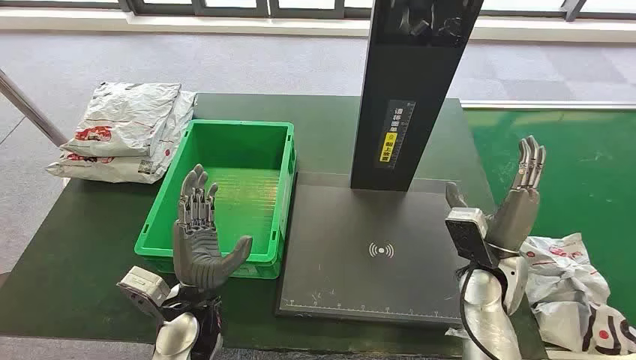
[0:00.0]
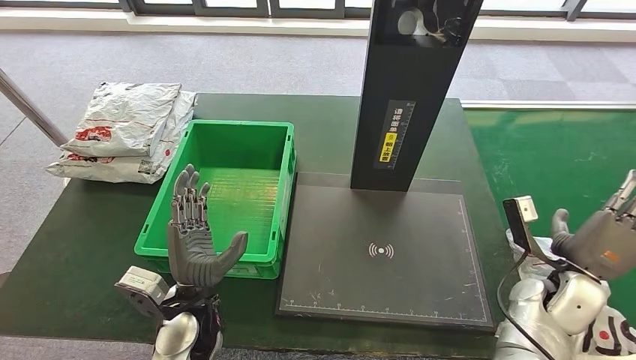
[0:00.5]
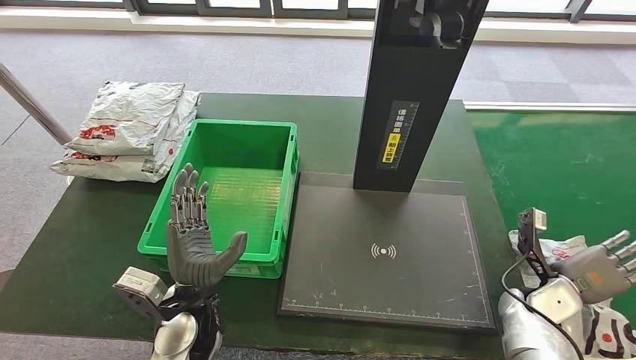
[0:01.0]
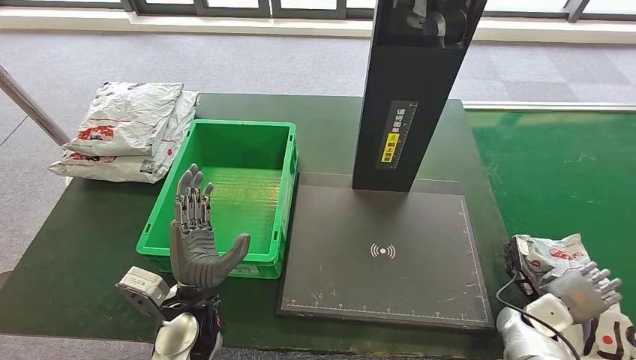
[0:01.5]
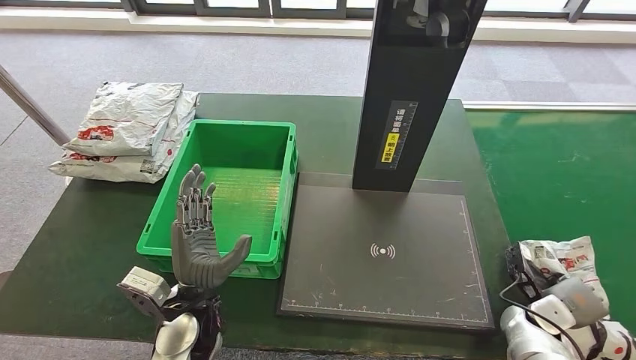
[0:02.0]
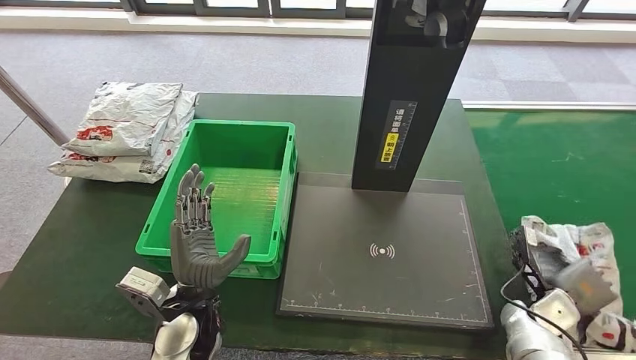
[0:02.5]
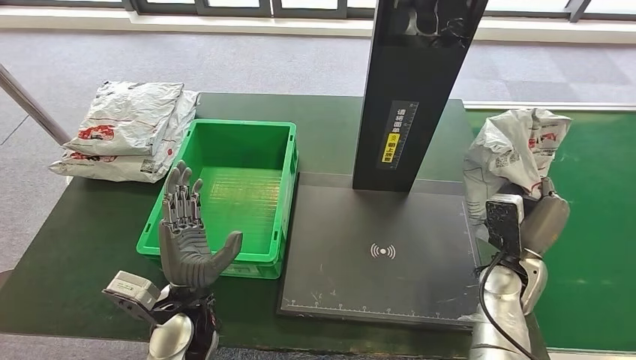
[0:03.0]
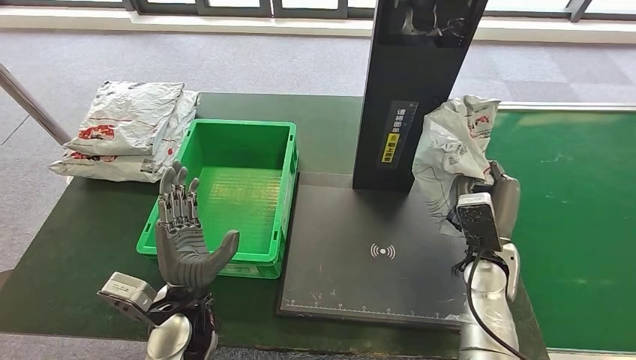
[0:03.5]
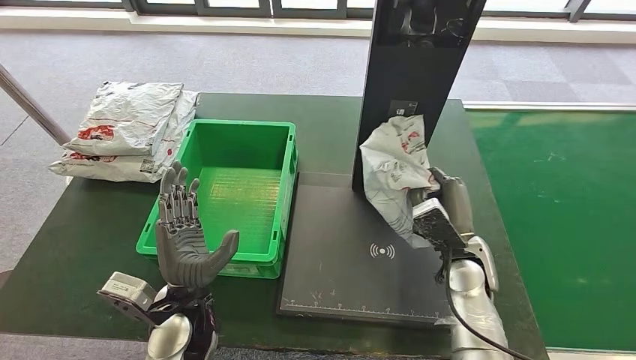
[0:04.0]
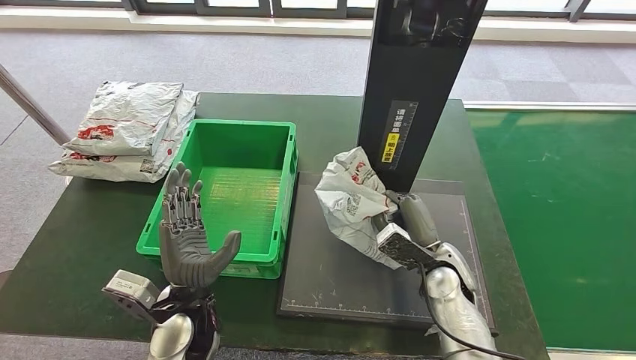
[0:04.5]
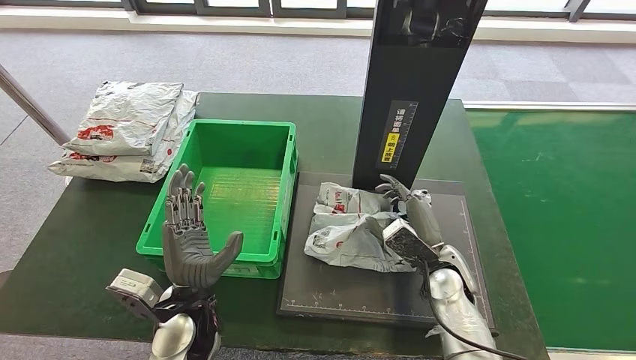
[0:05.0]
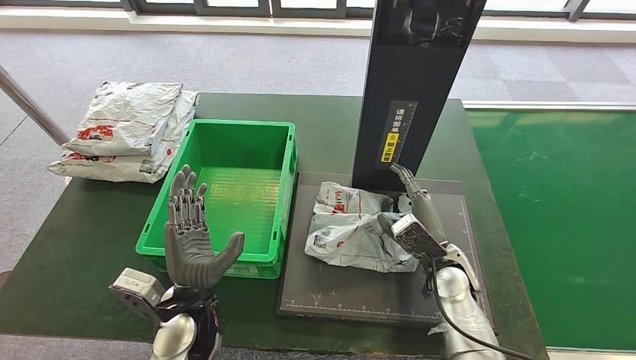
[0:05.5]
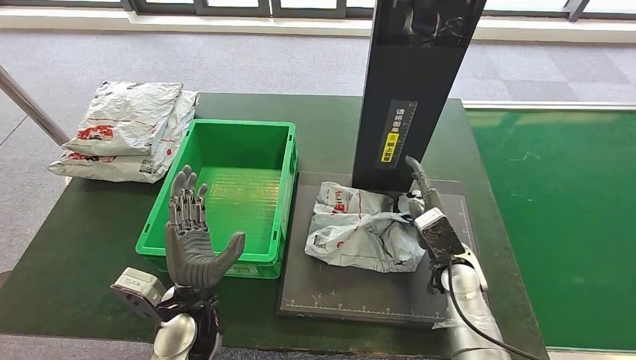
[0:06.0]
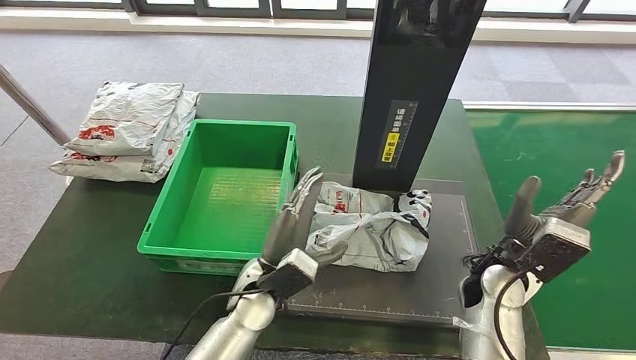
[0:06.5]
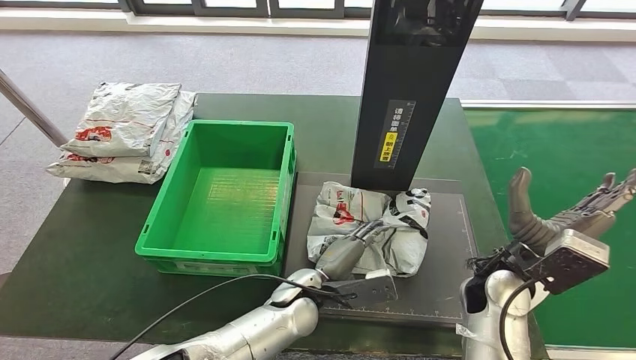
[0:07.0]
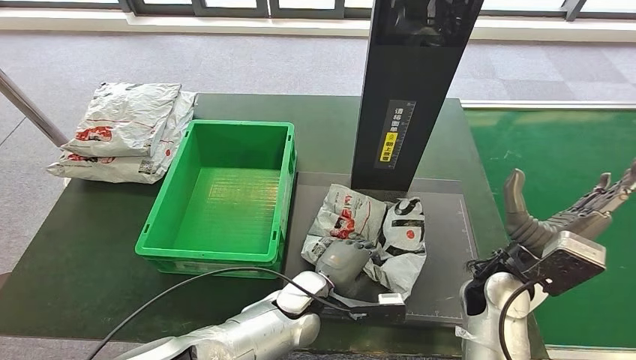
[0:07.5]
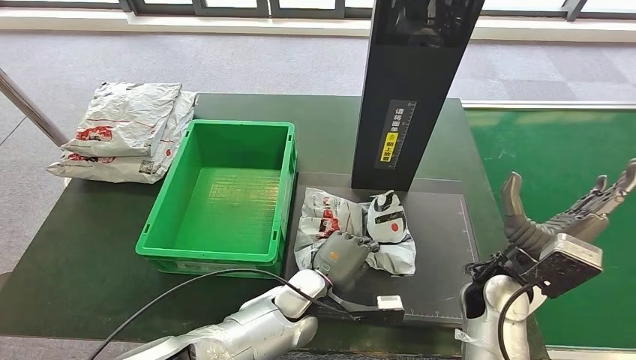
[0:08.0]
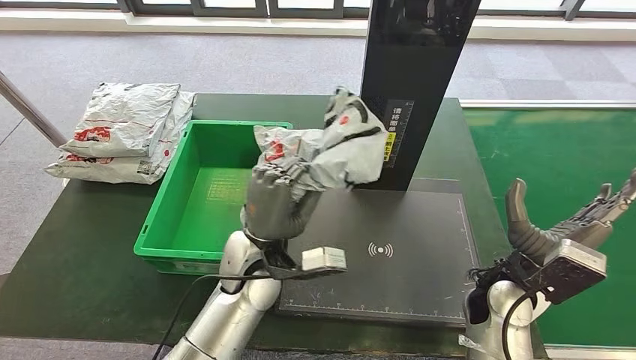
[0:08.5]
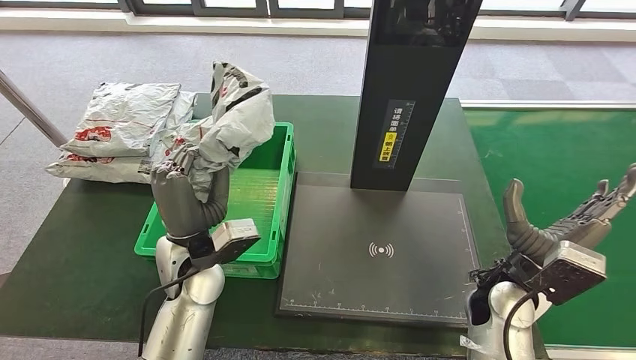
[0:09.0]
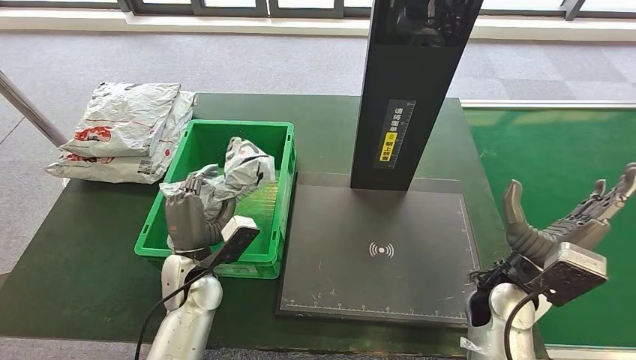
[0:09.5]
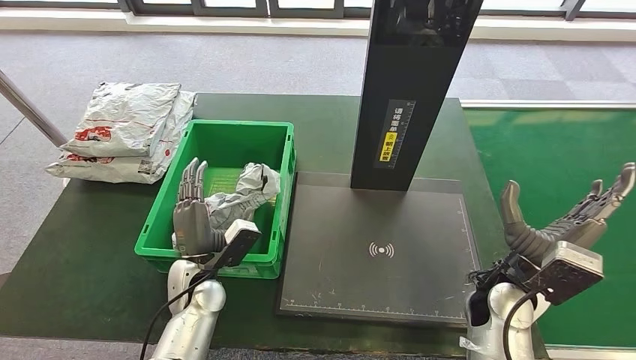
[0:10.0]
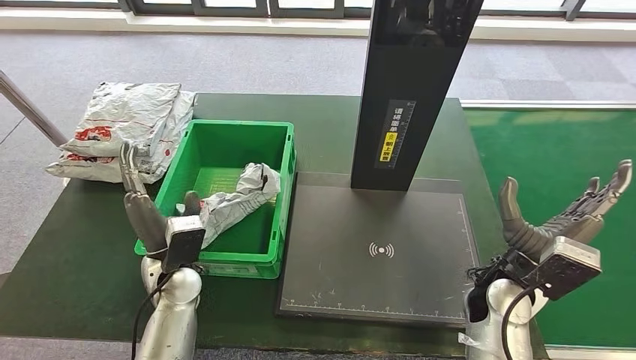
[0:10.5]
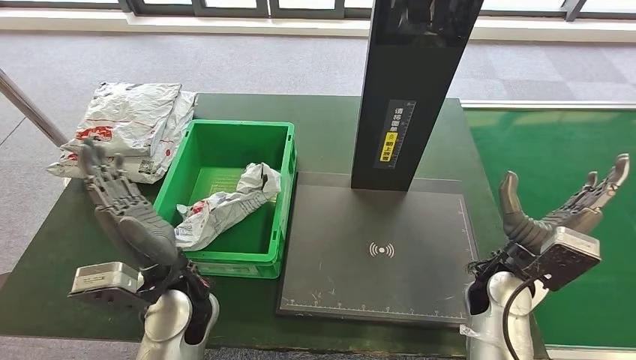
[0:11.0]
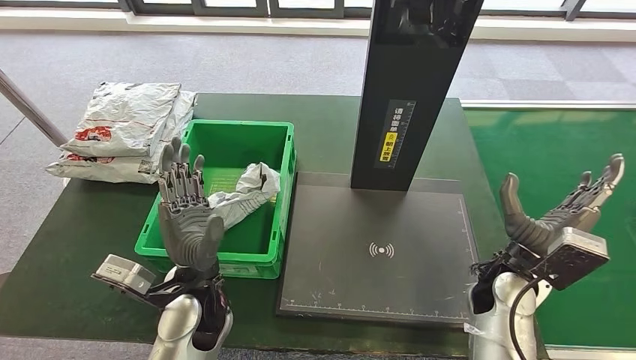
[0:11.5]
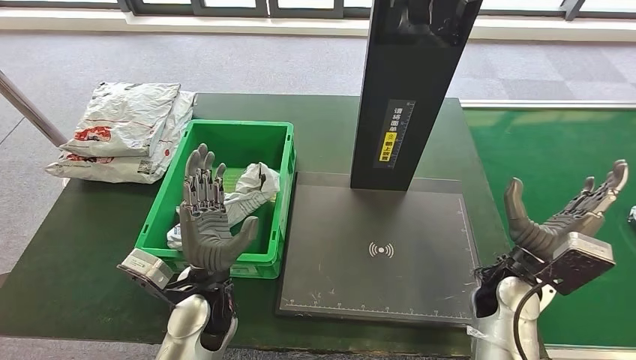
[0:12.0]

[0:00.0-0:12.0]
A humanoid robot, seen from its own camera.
Step, 0:00.0 to 0:02.5: Take the parcel off the conveyor belt.
Step, 0:03.5 to 0:06.0: Place the parcel onto the inbound machine.
Step, 0:06.5 to 0:08.5: Pick up the parcel from the inbound machine.
Step, 0:09.0 to 0:10.0: Put the parcel inside the courier box.
0:02.0 to 0:04.0: The right hand moves to the left and upward, some 20 cm.
0:04.0 to 0:06.0: The hands stay close to where they were, moving slightly.
0:06.0 to 0:08.0: The right hand goes about 5 cm upward; the left hand goes some 15 cm to the right.
0:08.0 to 0:10.0: The left hand shifts approximately 20 cm to the left.
0:10.0 to 0:12.0: The left hand is displaced upward and to the right by roughly 10 cm.

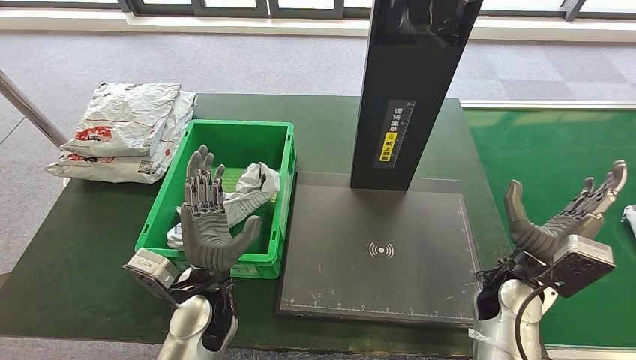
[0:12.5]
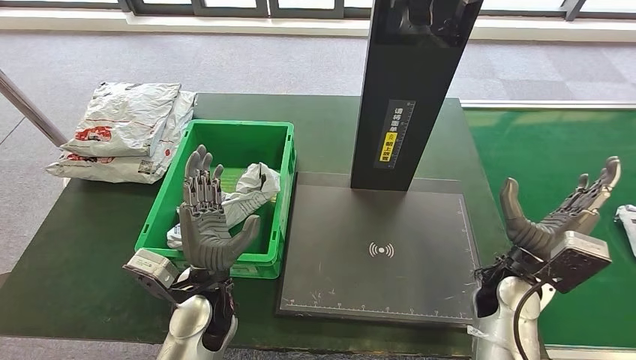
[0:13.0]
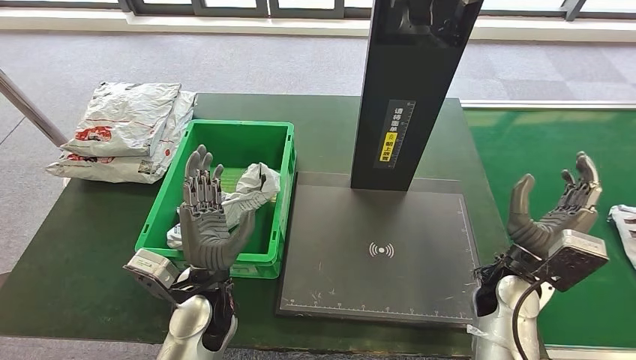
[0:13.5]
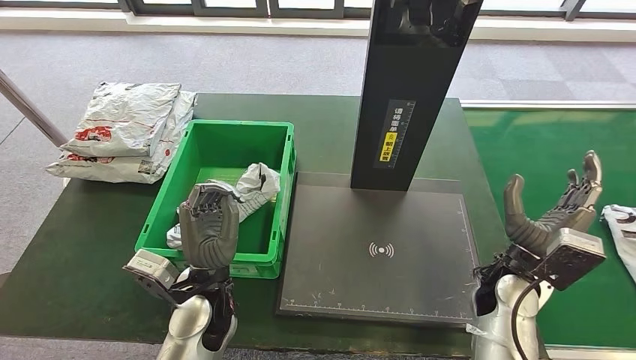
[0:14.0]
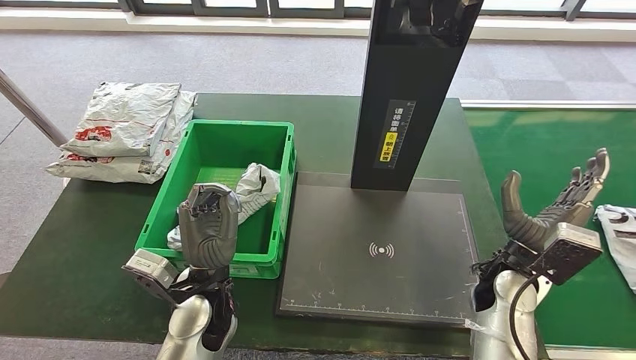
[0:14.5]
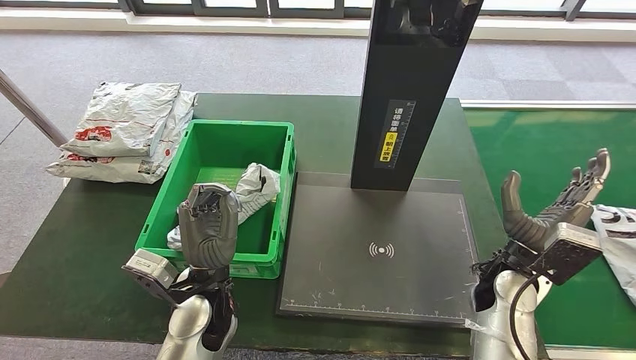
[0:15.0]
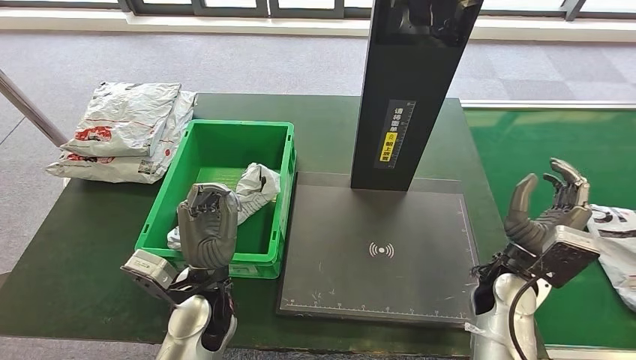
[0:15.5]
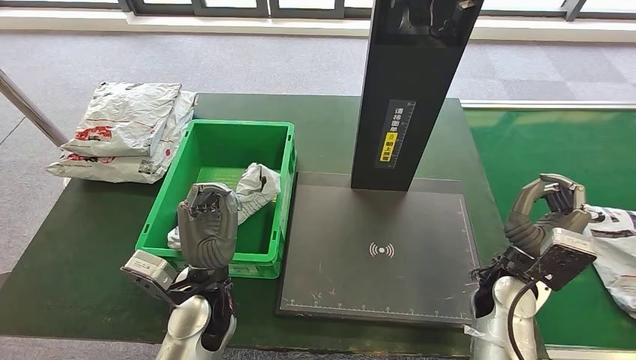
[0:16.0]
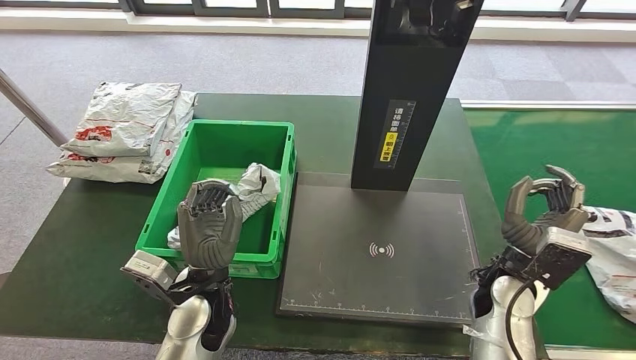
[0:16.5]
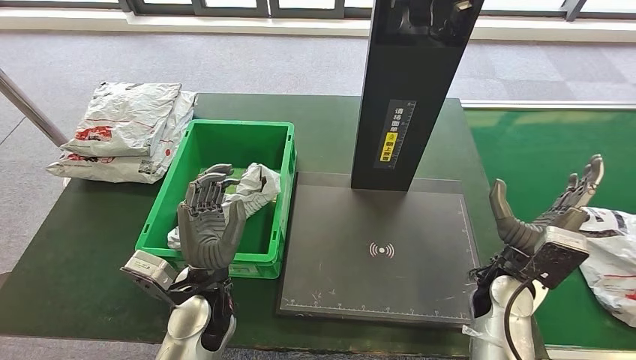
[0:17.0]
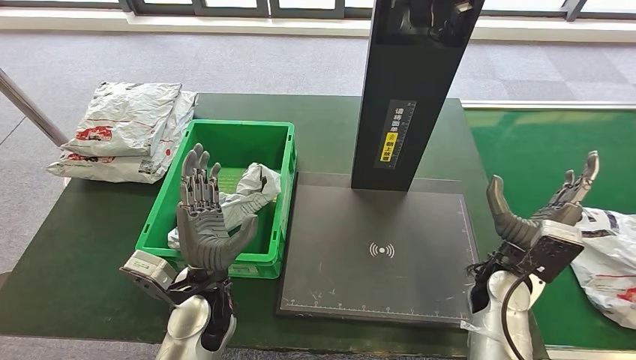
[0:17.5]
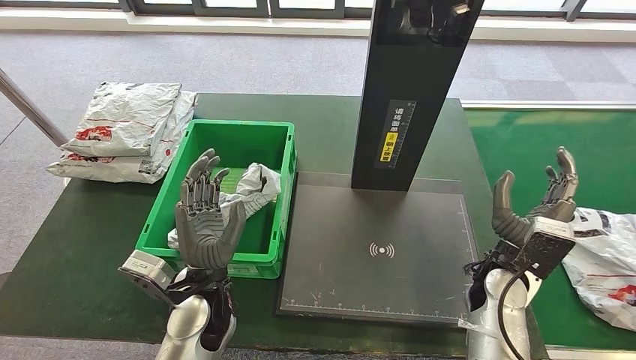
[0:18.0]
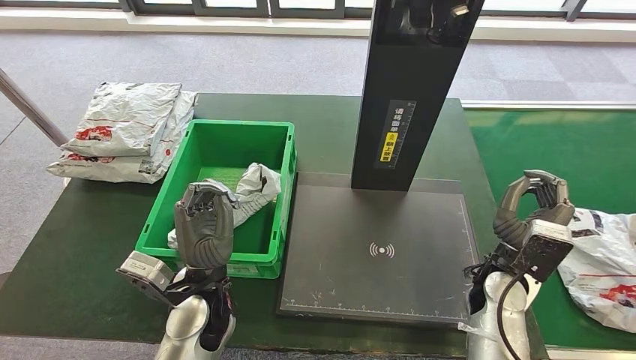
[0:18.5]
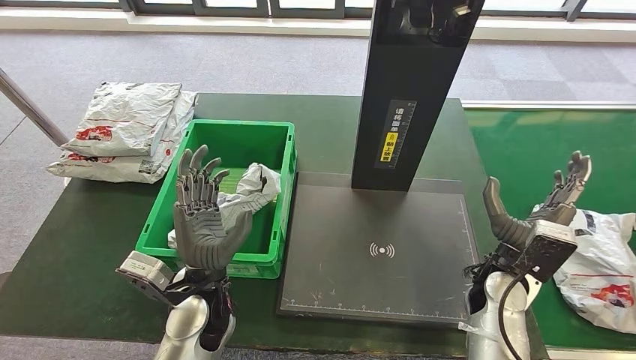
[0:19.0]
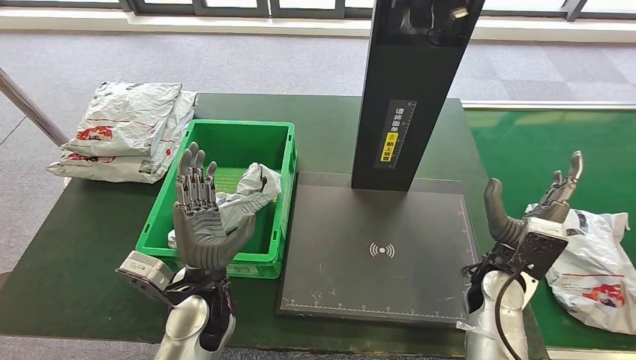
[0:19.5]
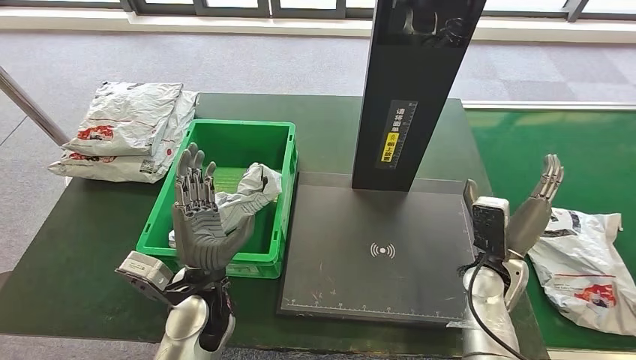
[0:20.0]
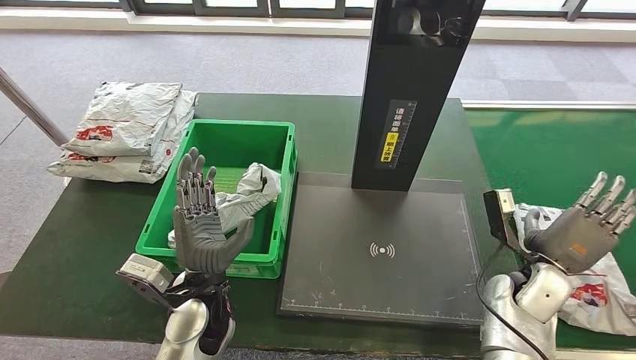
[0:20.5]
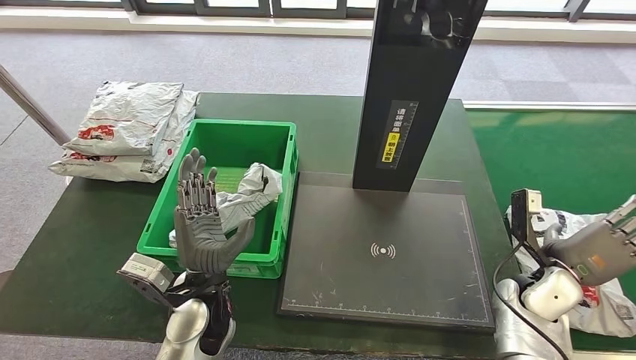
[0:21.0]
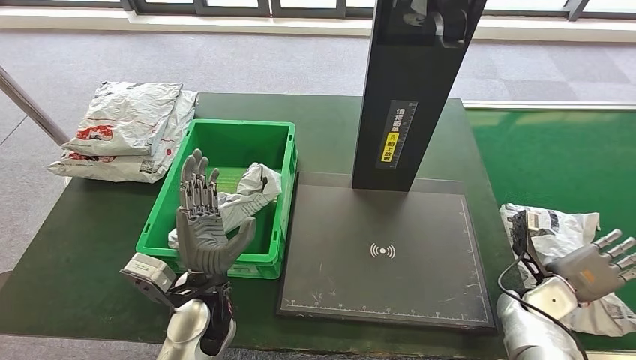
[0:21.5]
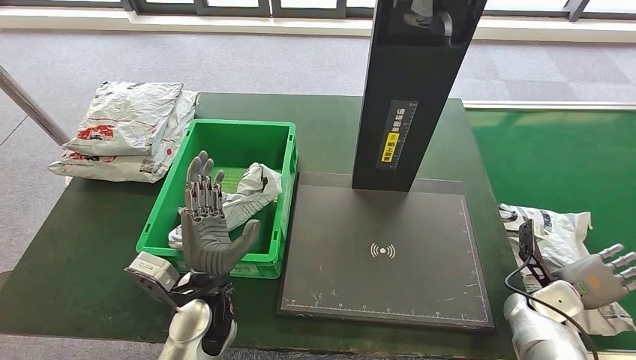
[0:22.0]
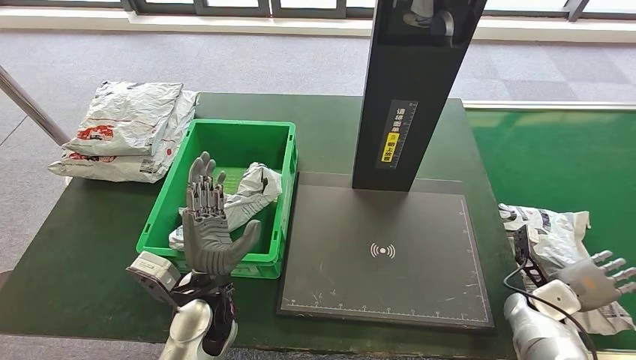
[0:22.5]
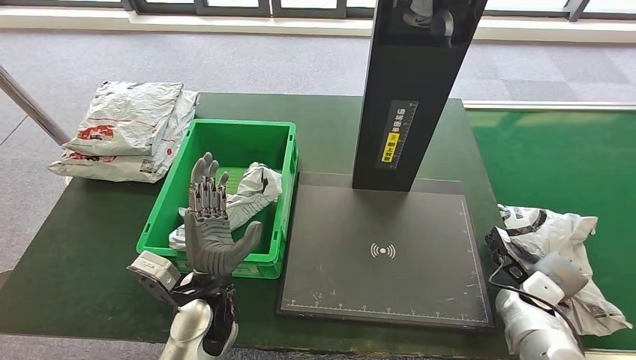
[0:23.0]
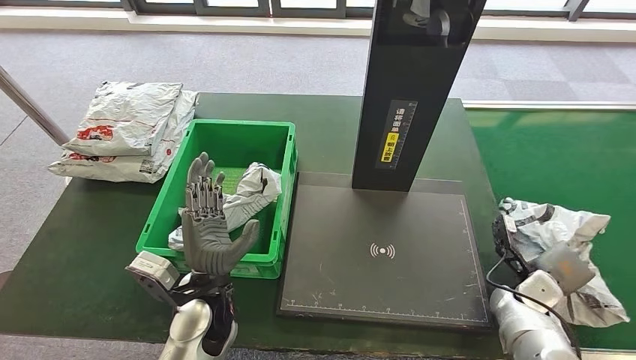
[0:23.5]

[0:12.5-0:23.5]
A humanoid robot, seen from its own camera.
0:12.5 to 0:16.0: The two hands keep their place.
0:16.0 to 0:18.0: Both hands stay about where they are.
0:20.0 to 0:21.5: The right hand moves to the right and downward, about 15 cm.
